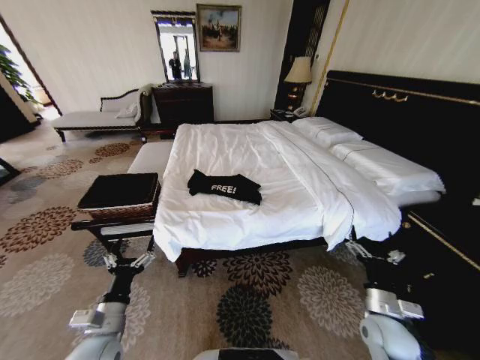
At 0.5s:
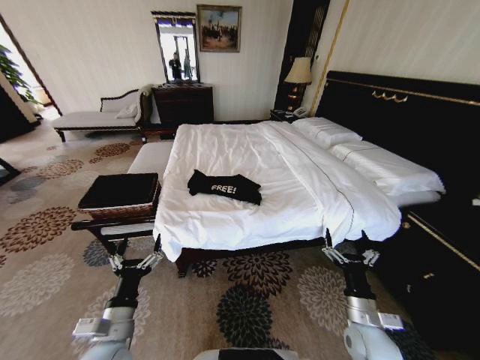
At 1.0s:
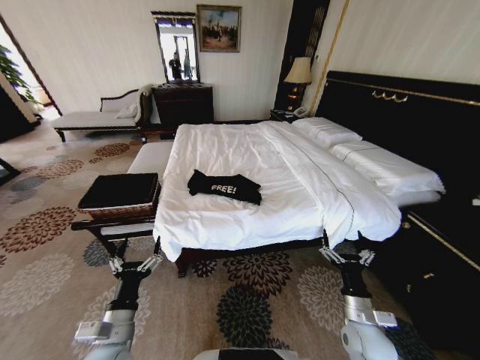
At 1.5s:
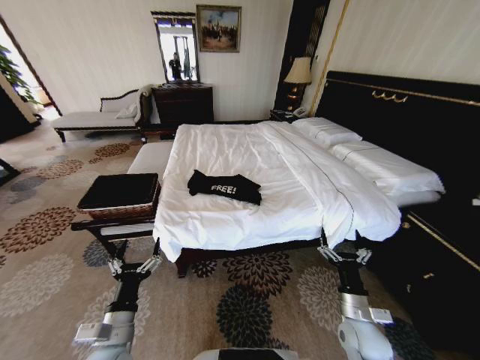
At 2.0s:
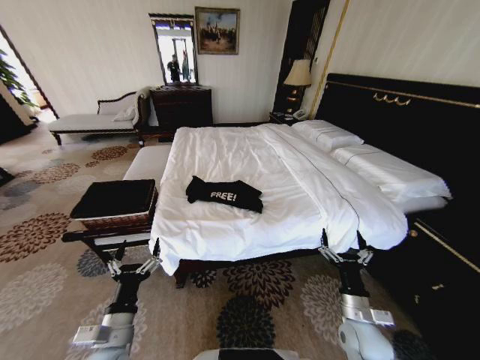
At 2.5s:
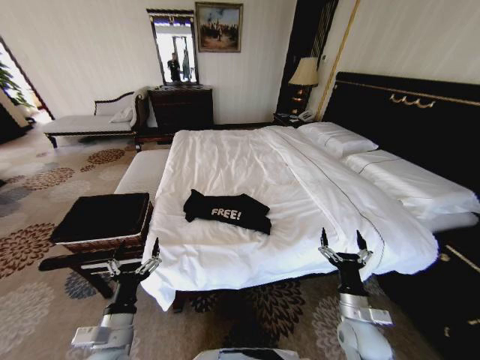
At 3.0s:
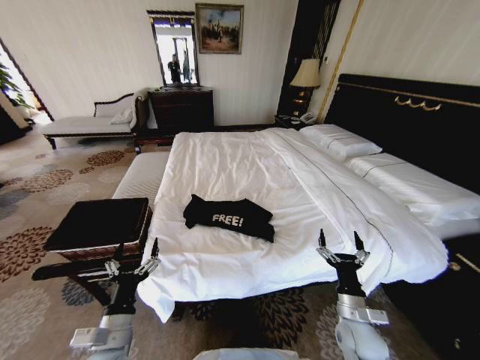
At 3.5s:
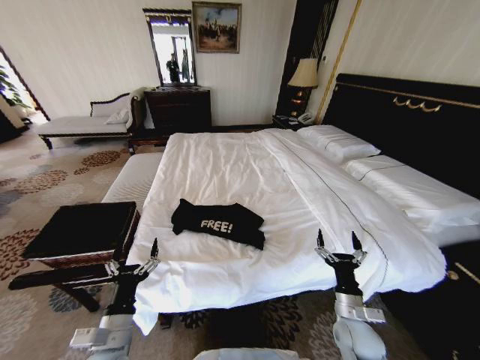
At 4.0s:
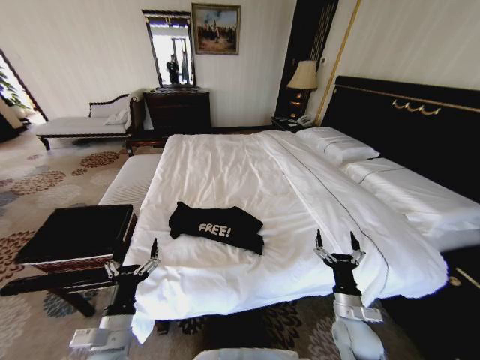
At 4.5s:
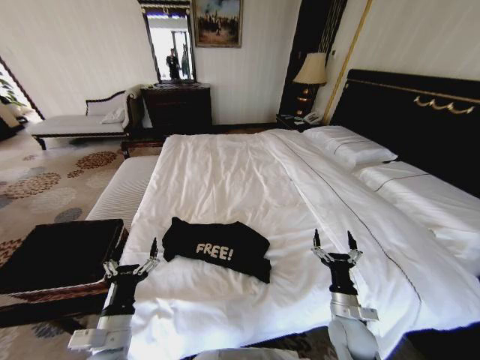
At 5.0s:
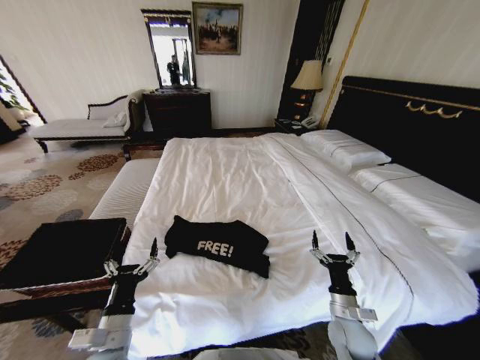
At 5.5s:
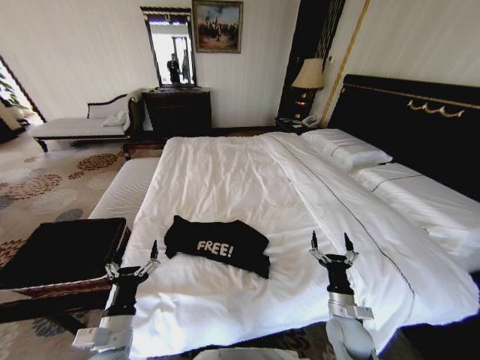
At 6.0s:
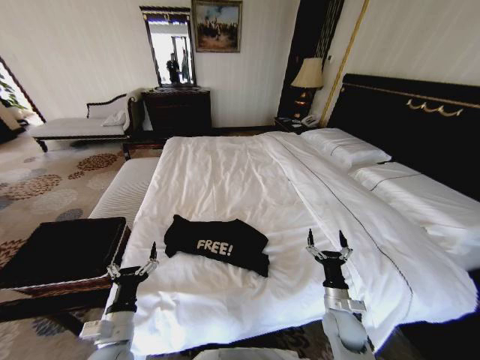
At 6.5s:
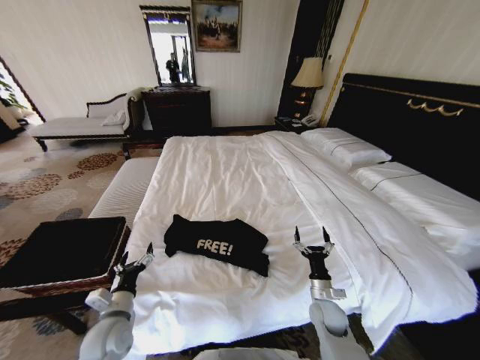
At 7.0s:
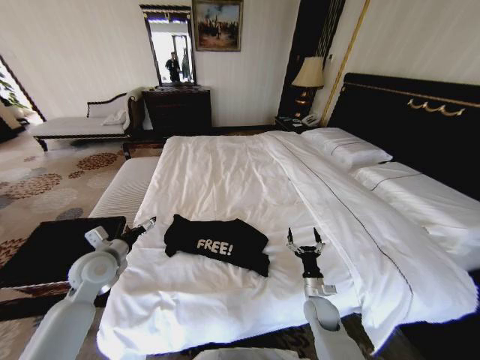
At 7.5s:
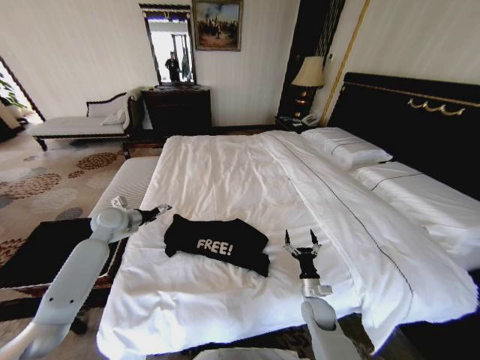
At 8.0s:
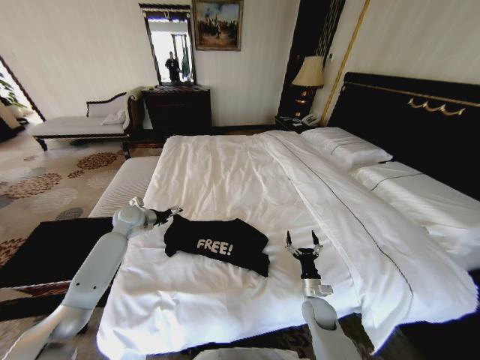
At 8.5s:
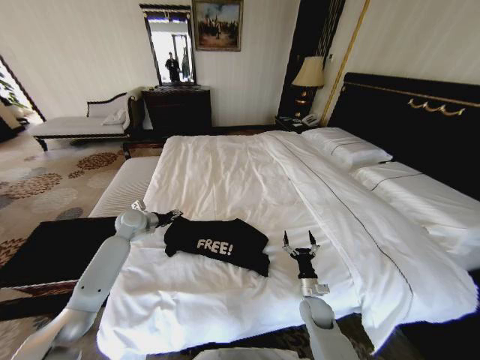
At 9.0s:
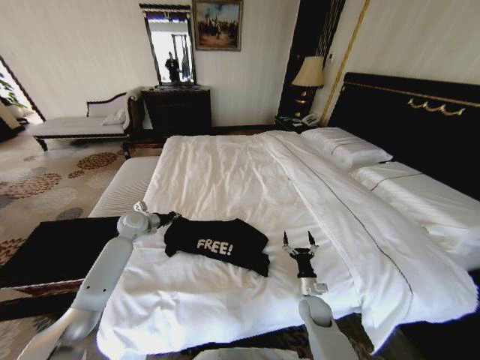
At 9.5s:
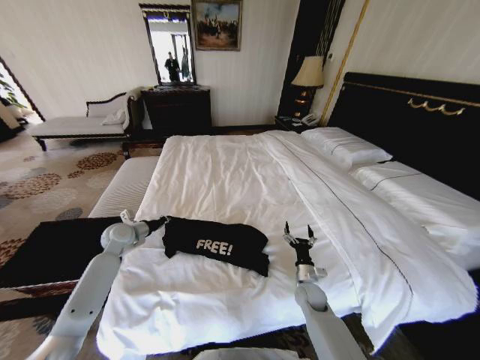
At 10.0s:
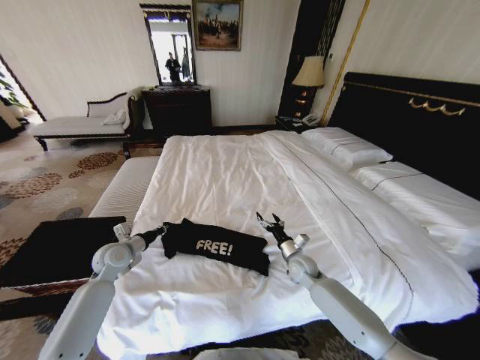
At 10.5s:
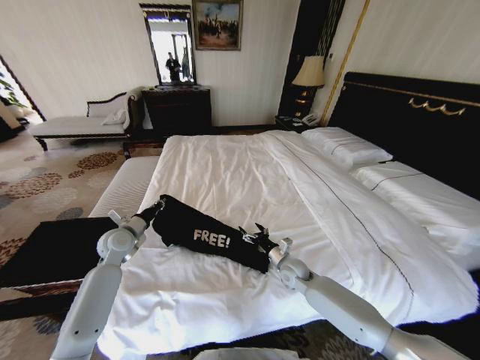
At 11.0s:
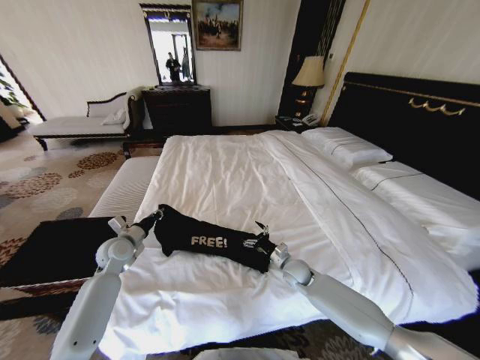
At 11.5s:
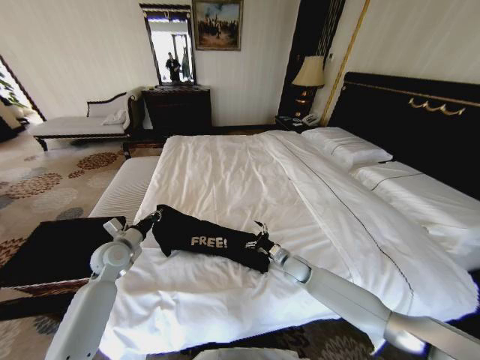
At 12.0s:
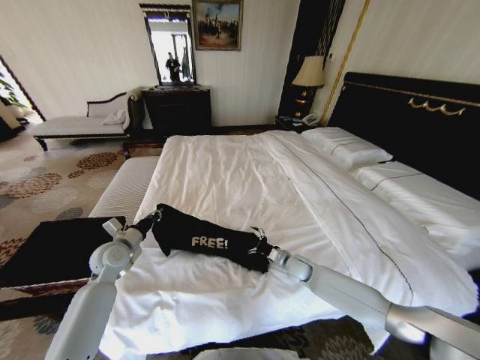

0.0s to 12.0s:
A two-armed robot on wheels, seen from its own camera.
Task of the whole recording: Fold the clothes on the bed and place them into the basket.
6.0s to 8.0s: The left gripper goes about 35 cm forward. Meanwhile the right gripper goes some 5 cm downward.
8.0s to 10.0s: The left gripper moves backward, about 10 cm, and closes its fingers; the right gripper heads forward and upward, covering some 15 cm.

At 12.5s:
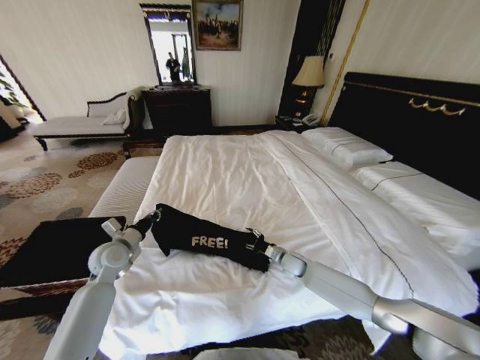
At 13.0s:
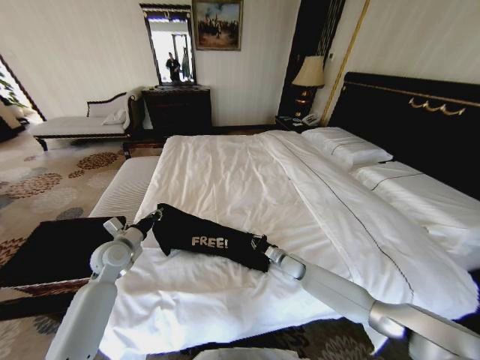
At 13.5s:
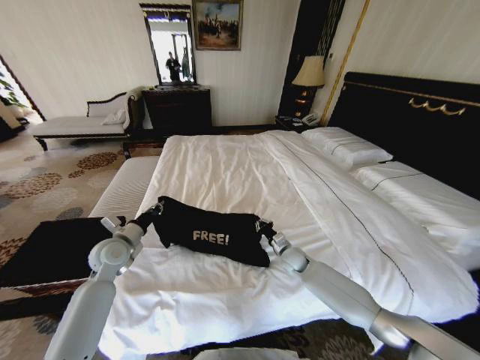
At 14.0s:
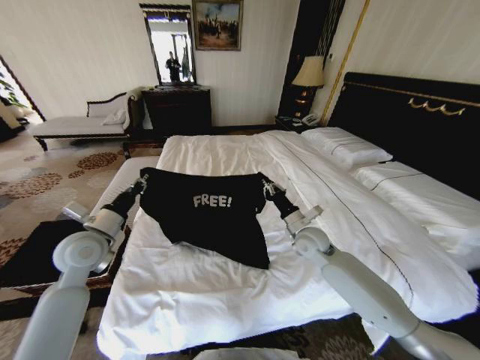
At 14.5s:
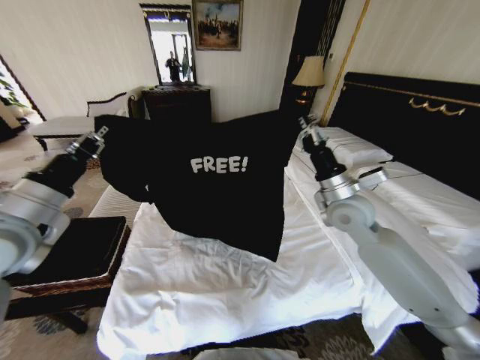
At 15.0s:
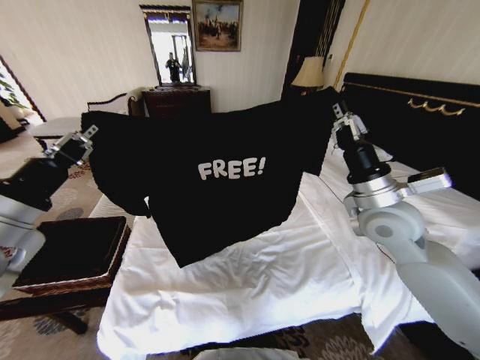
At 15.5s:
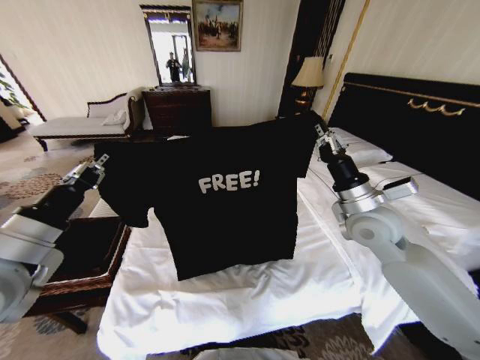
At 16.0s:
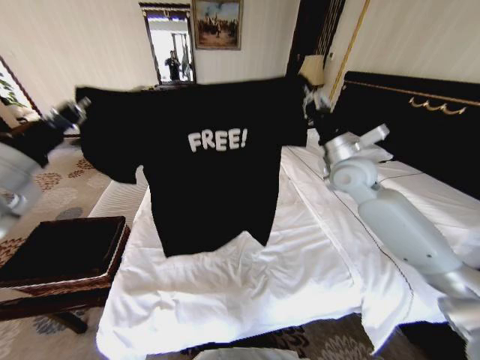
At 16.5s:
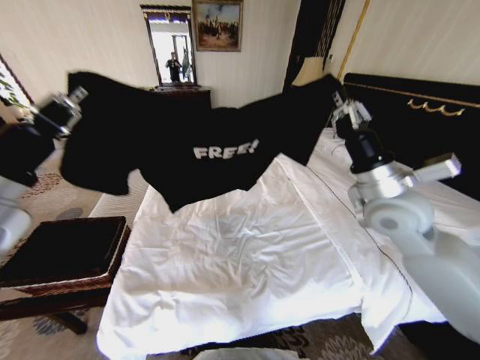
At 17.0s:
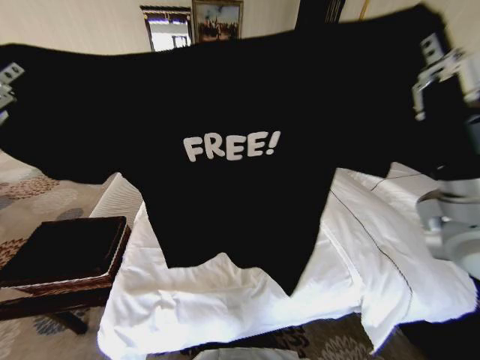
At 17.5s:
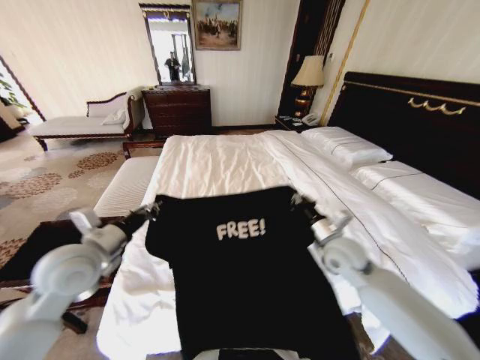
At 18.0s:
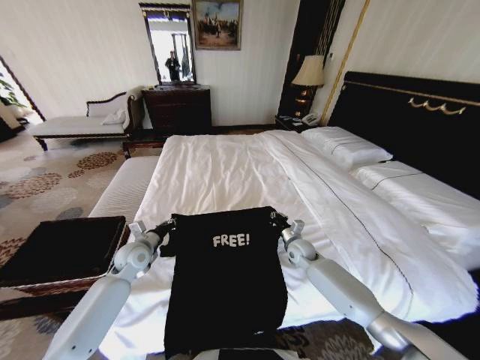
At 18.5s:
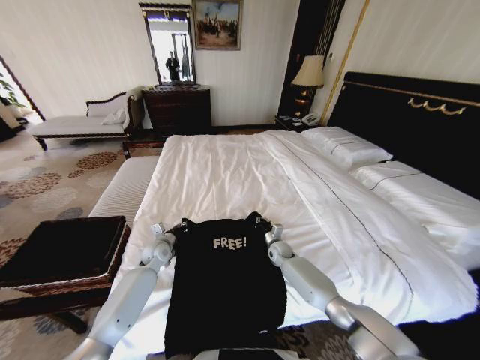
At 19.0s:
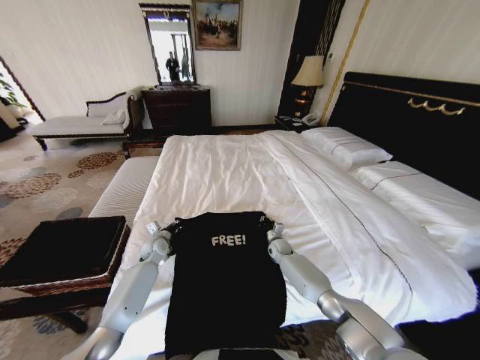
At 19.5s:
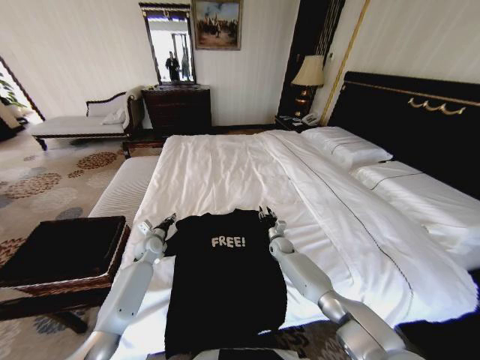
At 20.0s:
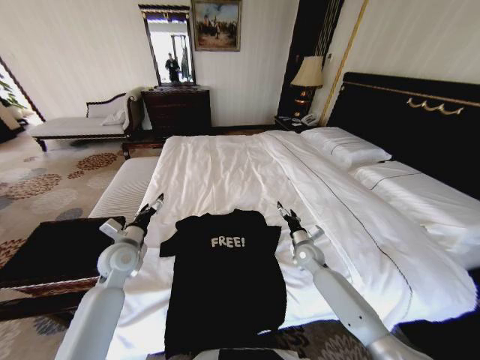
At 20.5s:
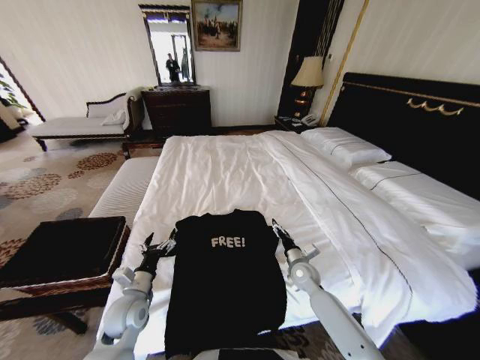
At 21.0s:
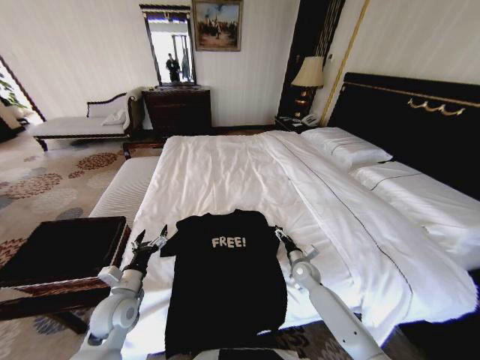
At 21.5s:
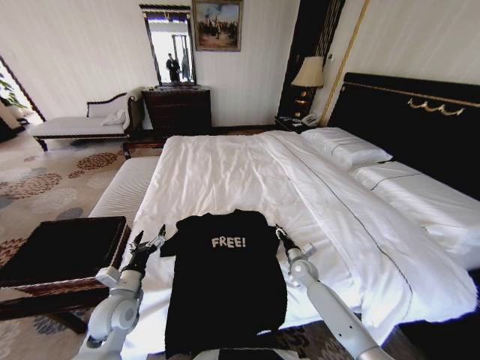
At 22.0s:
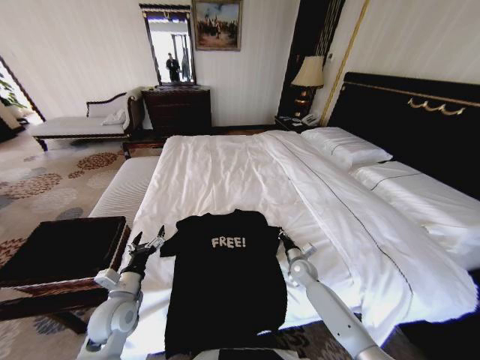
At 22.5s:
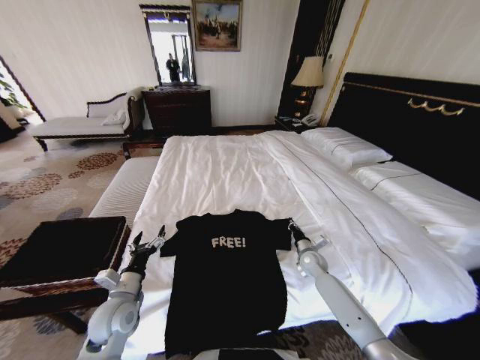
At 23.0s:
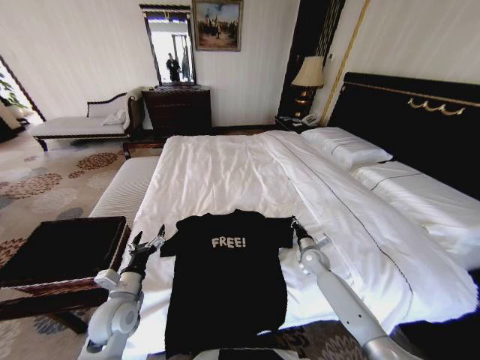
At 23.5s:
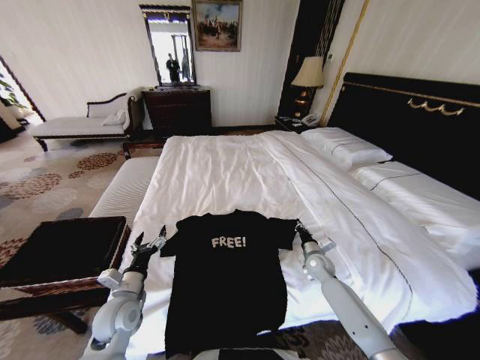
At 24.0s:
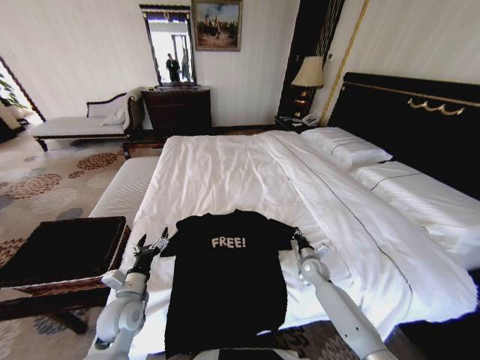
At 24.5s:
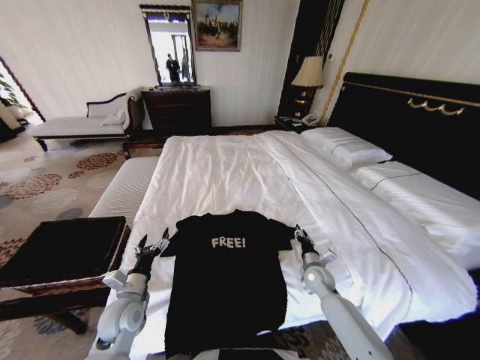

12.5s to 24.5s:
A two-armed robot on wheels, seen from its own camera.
Task of the whole recording: Fold the clothes on the bed and place them into the basket.
12.5s to 14.5s: The right gripper travels upward by approximately 35 cm, and closes up. The left gripper moves upward and backward, about 25 cm.
14.5s to 16.5s: The left gripper goes some 5 cm upward; the right gripper moves forward and backward over approximately 15 cm, changing direction 2 times.
16.5s to 18.5s: The right gripper shifts roughly 40 cm downward, while the left gripper moves downward and forward, approximately 40 cm.
18.5s to 20.5s: The right gripper goes approximately 10 cm backward, and opens up; the left gripper is displaced backward by approximately 20 cm, and opens up.
20.5s to 22.5s: The right gripper goes approximately 10 cm to the right and forward, and closes its fingers.
22.5s to 24.5s: The right gripper heads backward, covering about 5 cm, and opens up.

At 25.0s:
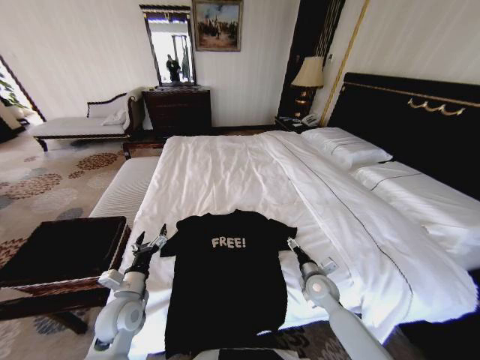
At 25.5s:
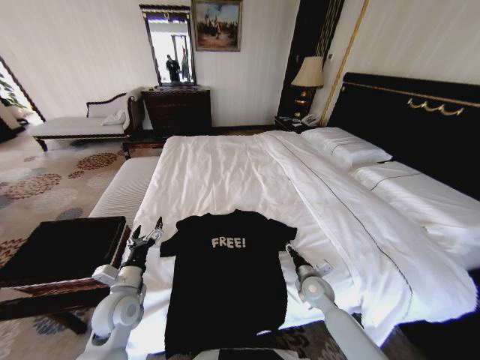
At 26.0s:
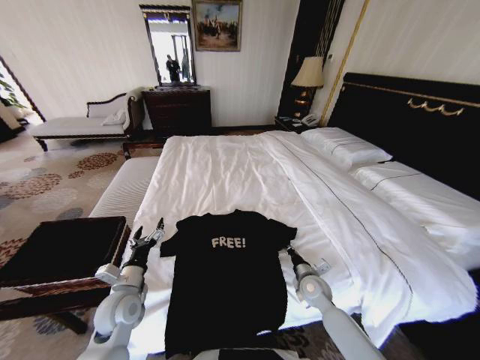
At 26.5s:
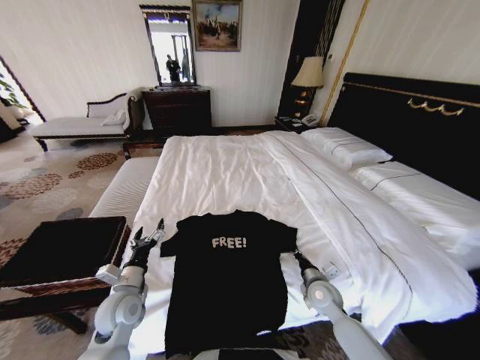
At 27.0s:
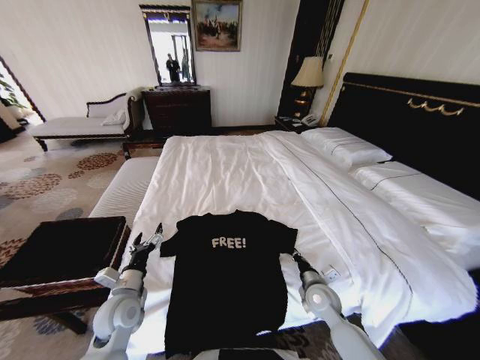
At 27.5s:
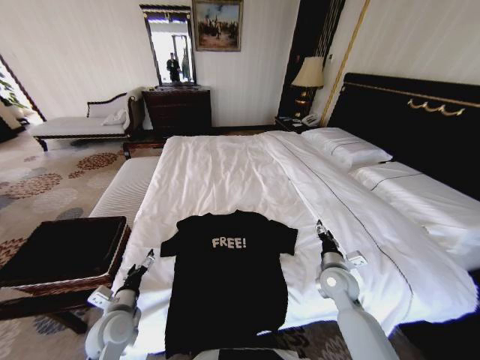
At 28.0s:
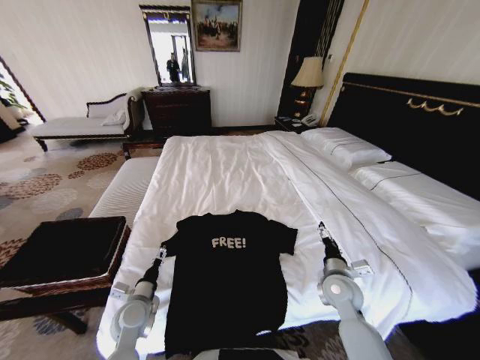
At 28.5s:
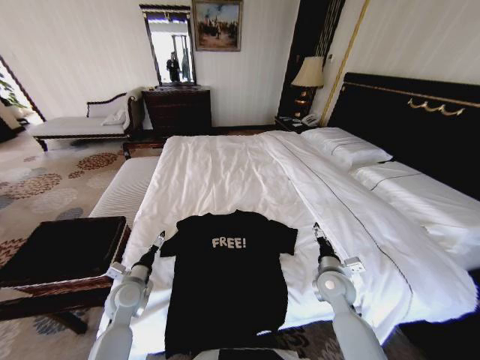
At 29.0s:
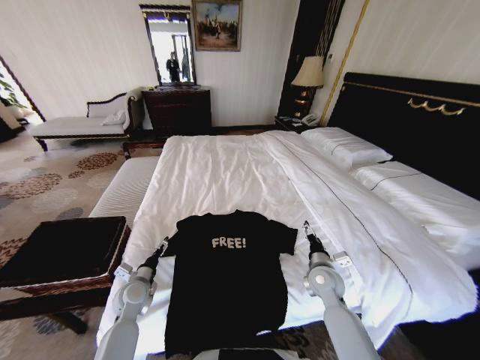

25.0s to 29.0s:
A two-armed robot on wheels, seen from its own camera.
Task of the whole recording: Fold the clothes on the bed and place them into the basket.
25.0s to 27.0s: The right gripper closes up.
27.0s to 29.0s: The left gripper shifts approximately 10 cm downward and forward. The right gripper shifts by some 5 cm, and opens.
